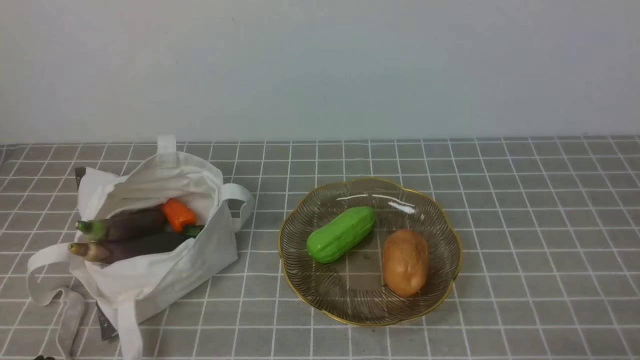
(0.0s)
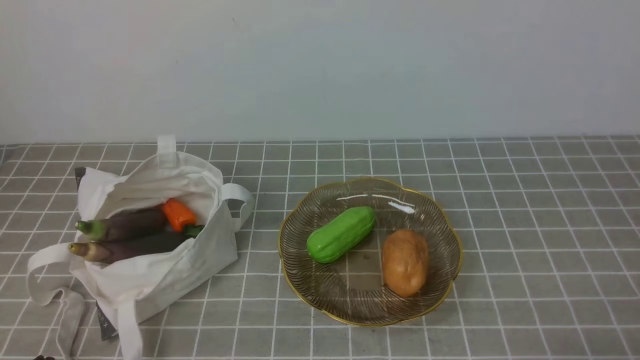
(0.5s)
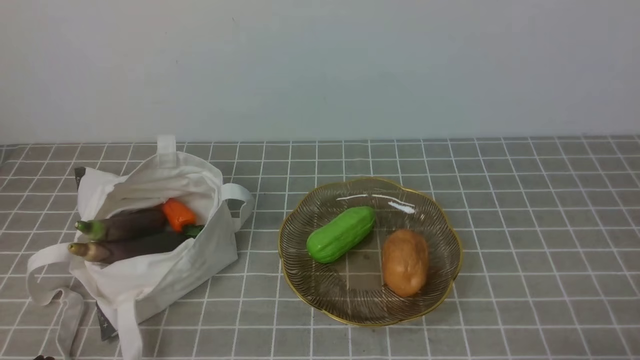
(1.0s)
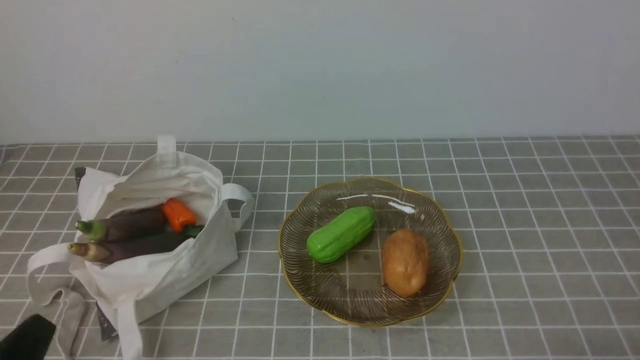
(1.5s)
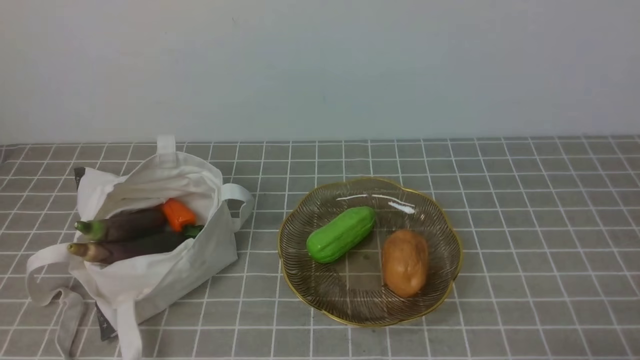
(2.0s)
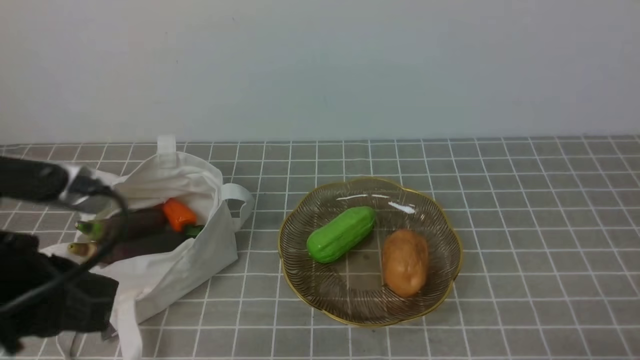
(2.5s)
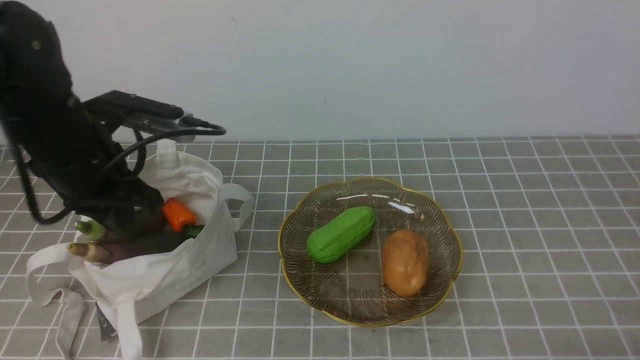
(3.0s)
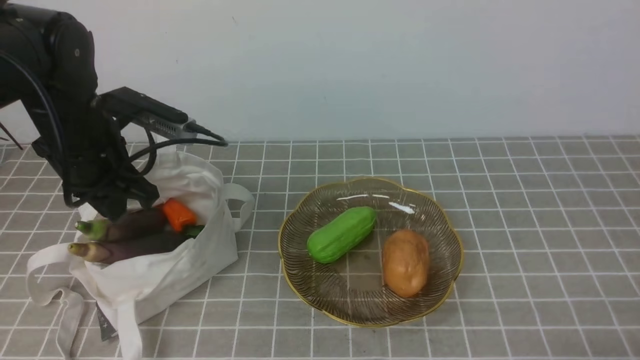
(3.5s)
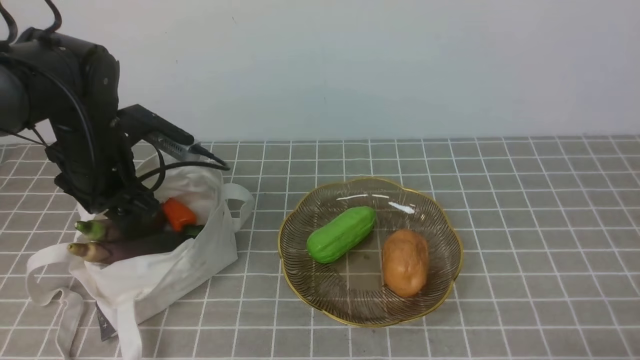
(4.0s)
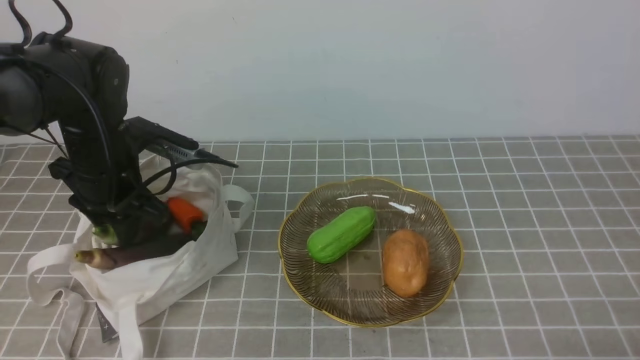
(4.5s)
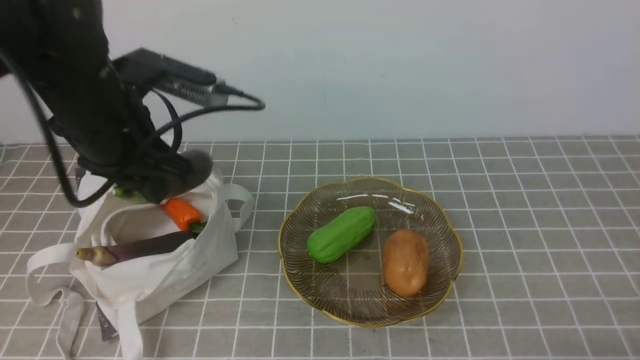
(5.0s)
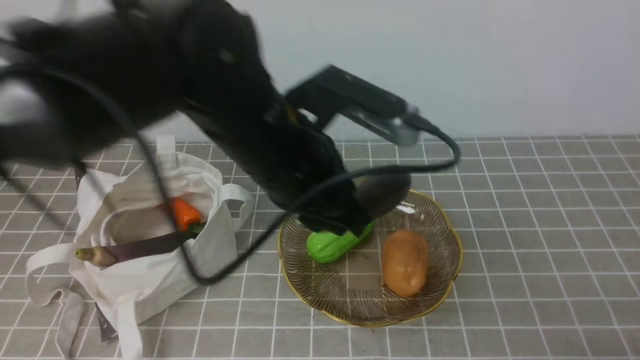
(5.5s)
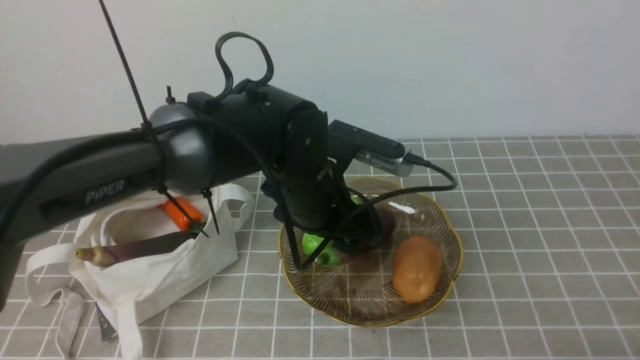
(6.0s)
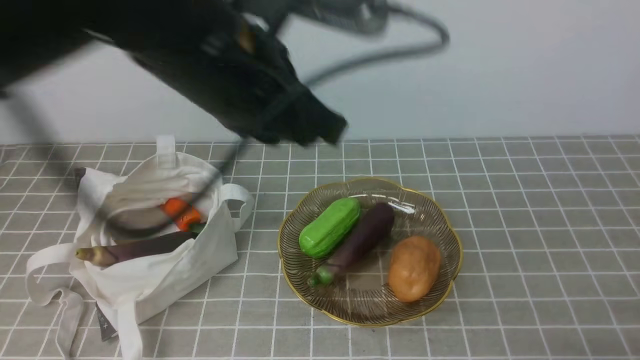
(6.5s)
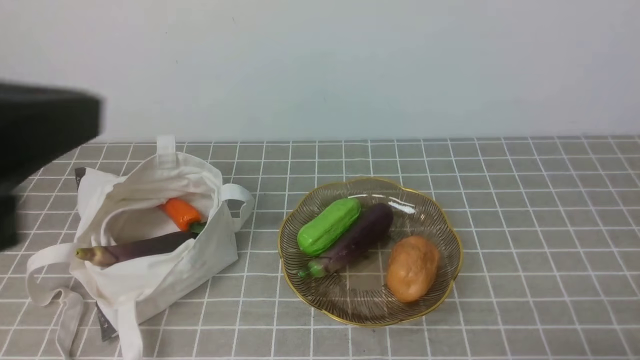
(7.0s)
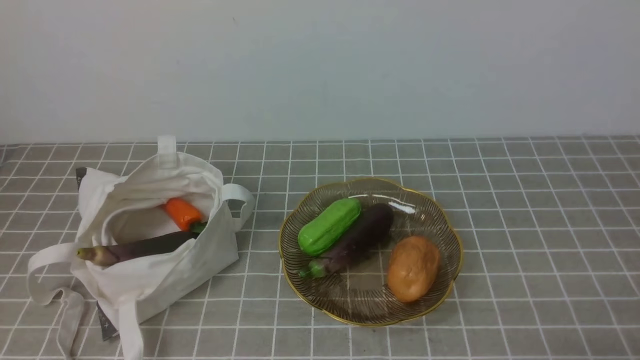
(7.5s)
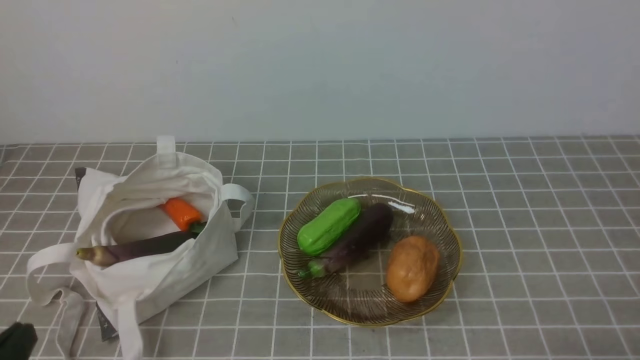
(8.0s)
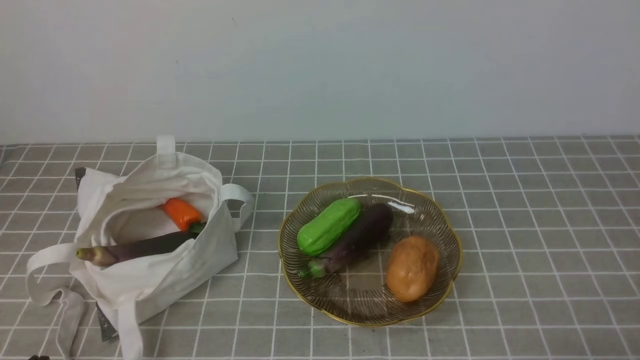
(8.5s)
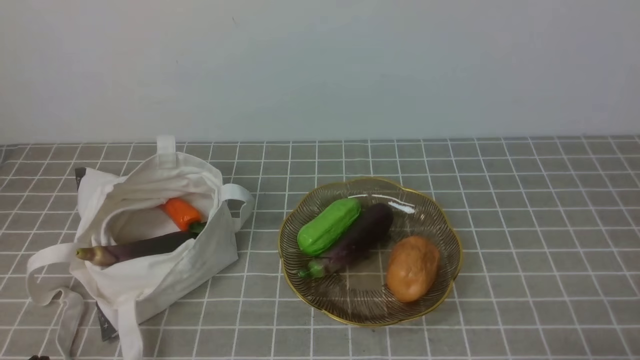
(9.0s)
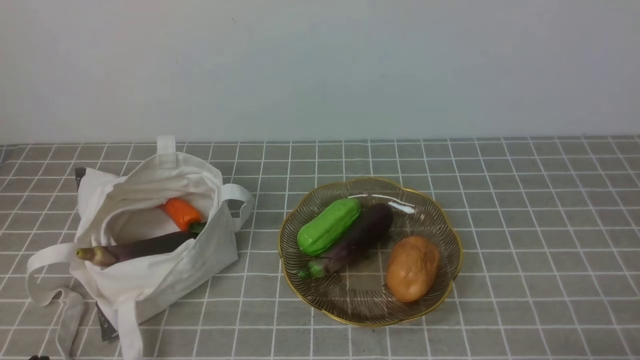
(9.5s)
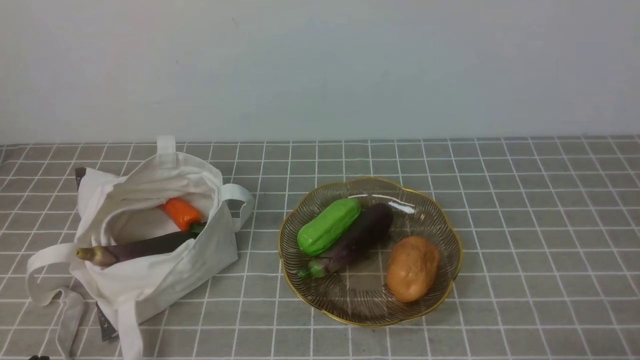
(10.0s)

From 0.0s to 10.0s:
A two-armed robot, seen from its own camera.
Task of the whole recording: take vegetables from bag on grey coffee tablecloth place on plate.
Step, from 0.0s to 4.0s: Grasp the eggplant with left gripper.
Step, from 4.5s to 6.0s: Place the eggplant on the plate with left gripper.
From 2.0s to 4.0s: The left gripper goes some 30 cm forward, and opens up.
From 4.0s to 6.0s: The left gripper is displaced to the right by about 20 cm, and closes, then opens again.
From 6.0s to 8.0s: The left gripper shifts approximately 35 cm backward and to the left, and closes up.
